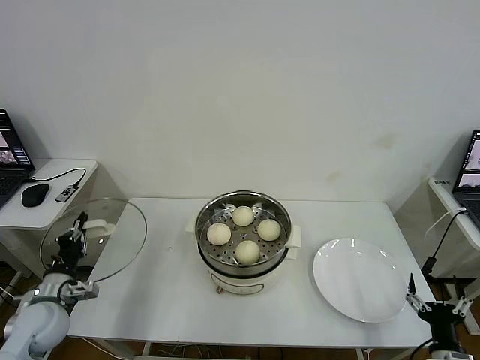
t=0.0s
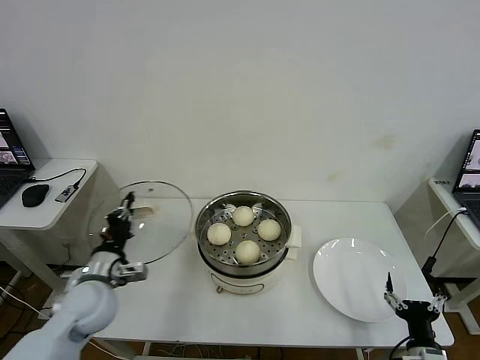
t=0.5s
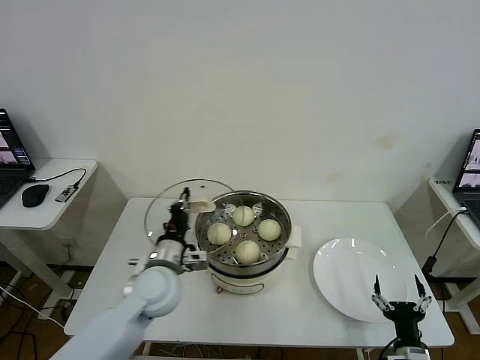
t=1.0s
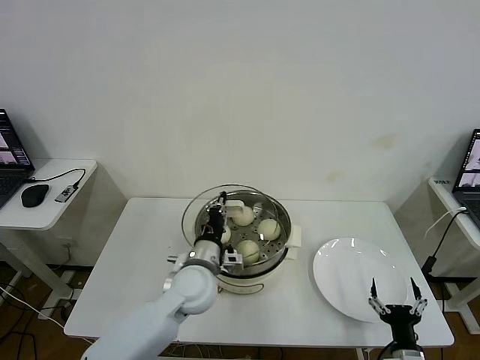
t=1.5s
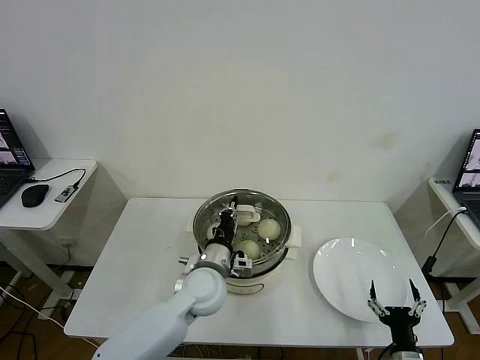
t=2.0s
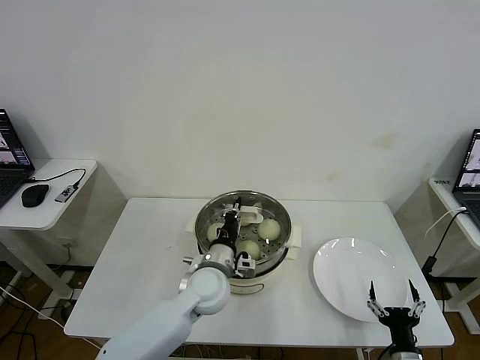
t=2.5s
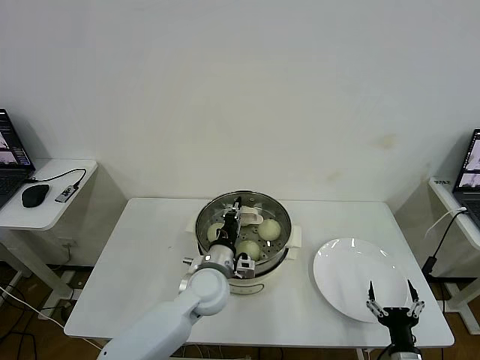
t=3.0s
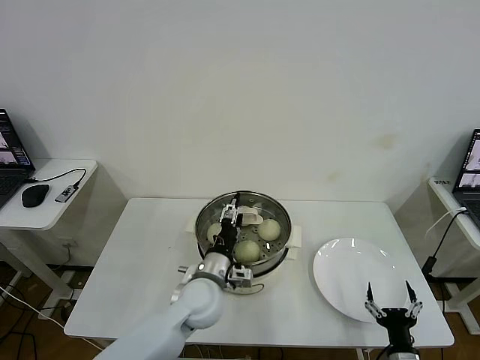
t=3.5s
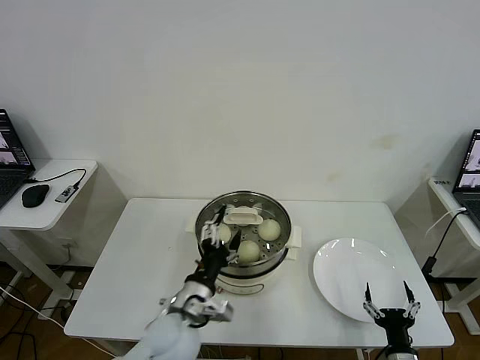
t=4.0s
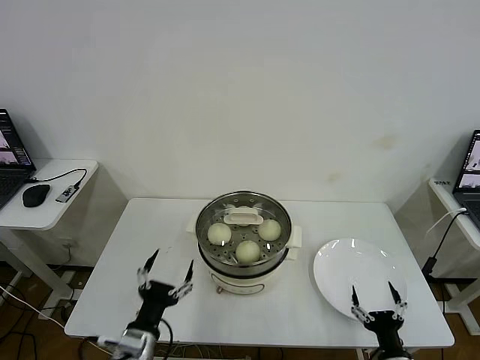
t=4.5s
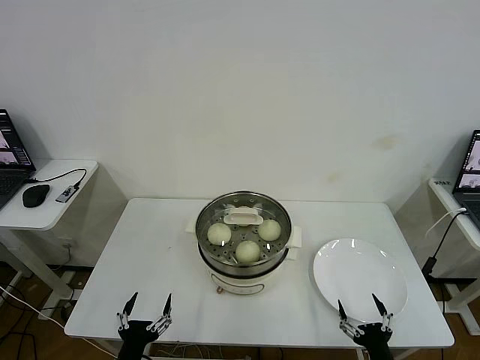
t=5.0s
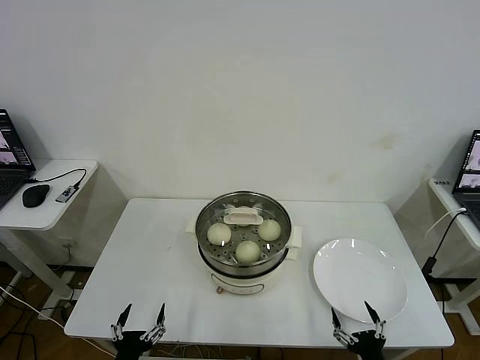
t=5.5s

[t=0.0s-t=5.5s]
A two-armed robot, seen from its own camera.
Task of the whole recording: take steamed baozi put them in steamer then cover it.
Step, t=0.0s to t=3.5s: Place the pot lid on the steamer with left gripper.
t=0.0s to t=2.0s: The right gripper moves to the left, roughly 5 cm; the left gripper moves to the right, some 35 cm.
t=2.0s to t=3.5s: The left gripper opens.
t=3.5s to t=5.5s: The left gripper moves backward, to the left and downward, some 30 cm. The right gripper ends up some 5 cm from where it was.

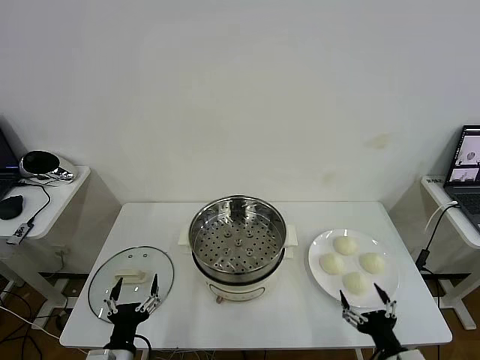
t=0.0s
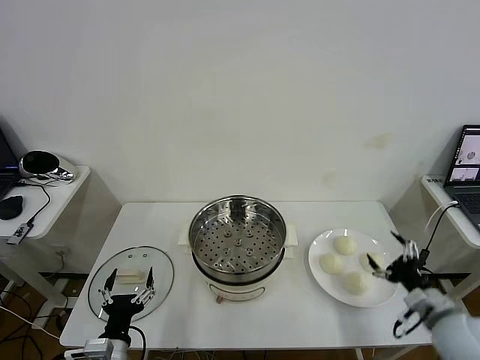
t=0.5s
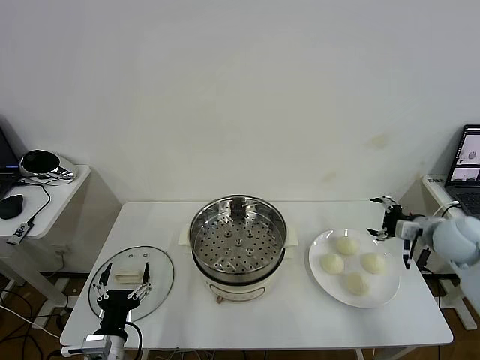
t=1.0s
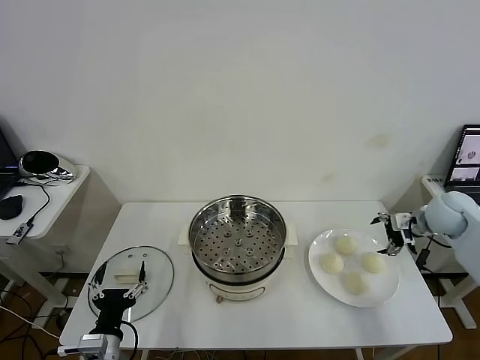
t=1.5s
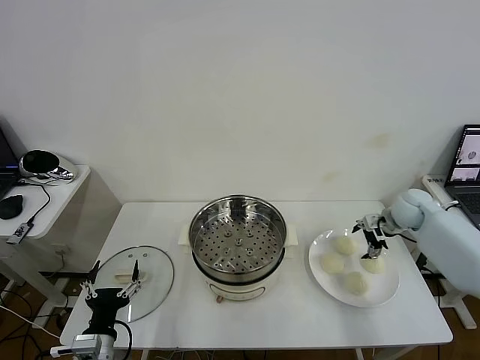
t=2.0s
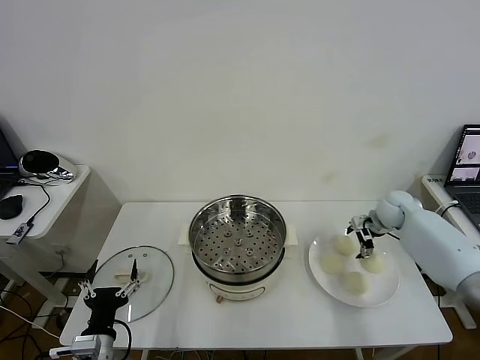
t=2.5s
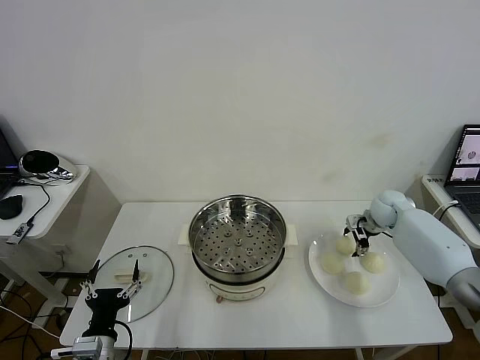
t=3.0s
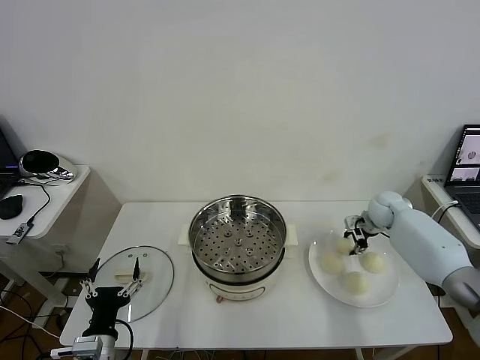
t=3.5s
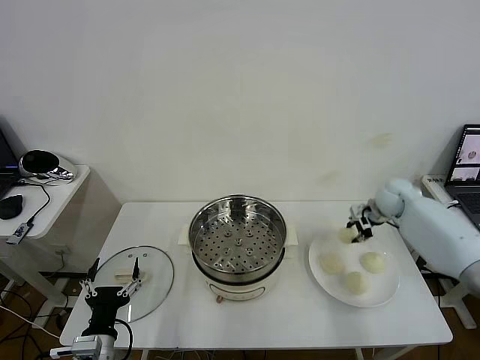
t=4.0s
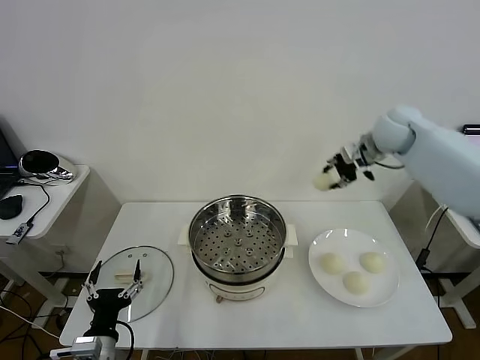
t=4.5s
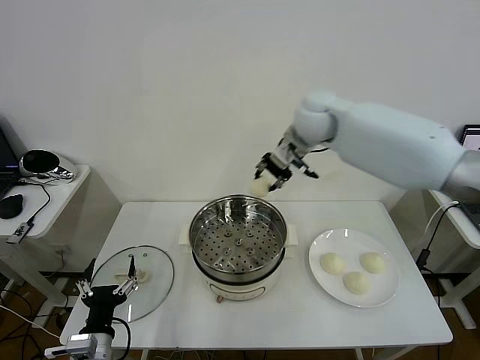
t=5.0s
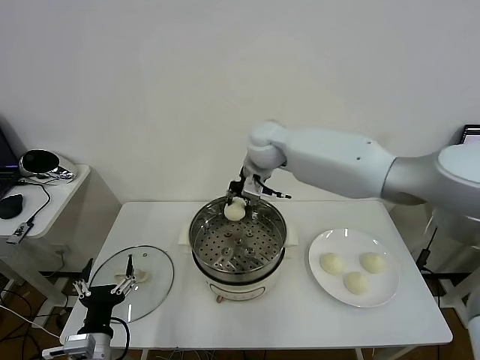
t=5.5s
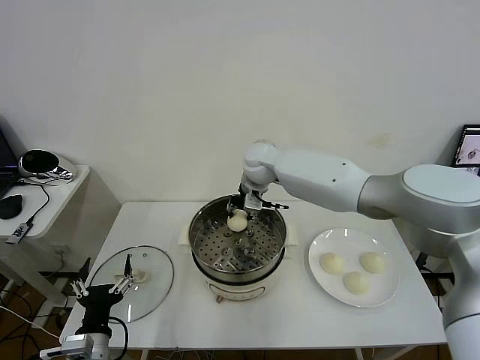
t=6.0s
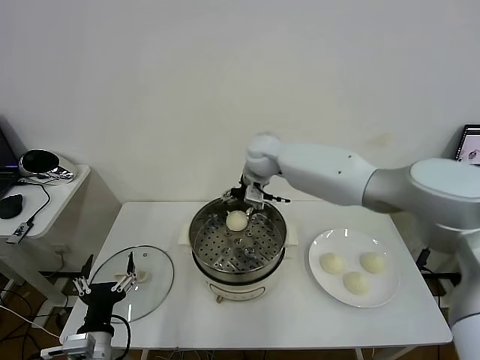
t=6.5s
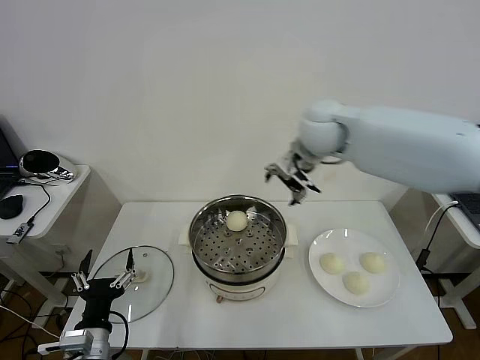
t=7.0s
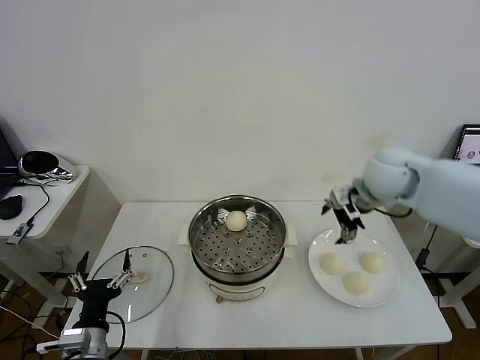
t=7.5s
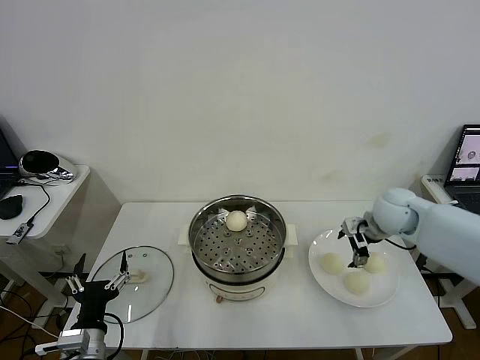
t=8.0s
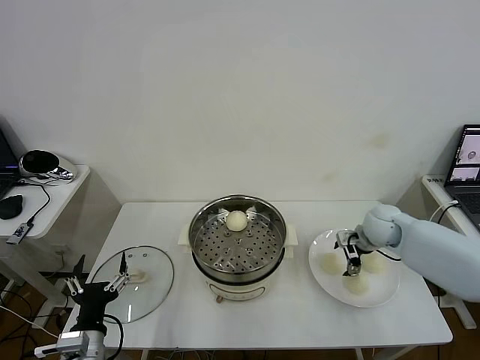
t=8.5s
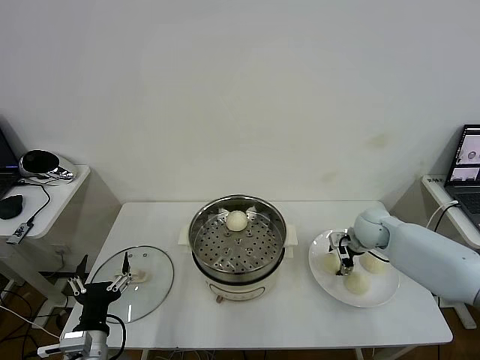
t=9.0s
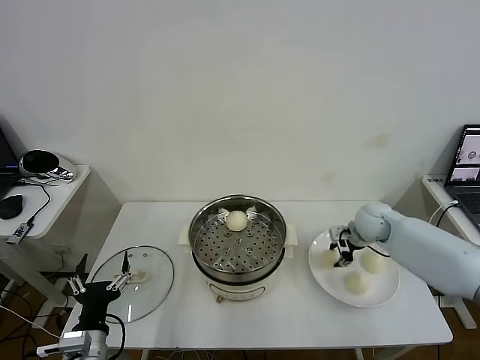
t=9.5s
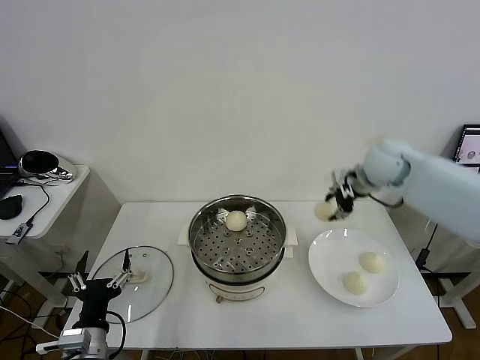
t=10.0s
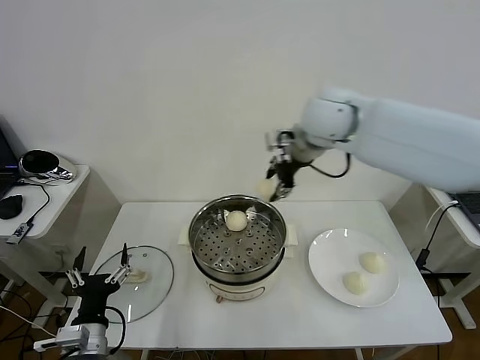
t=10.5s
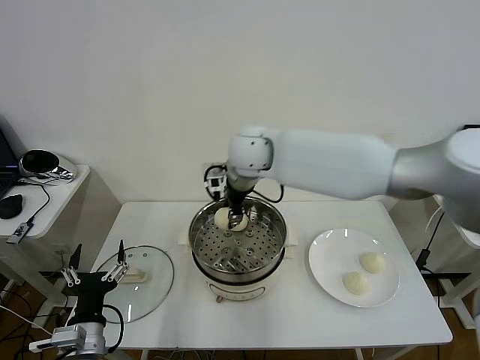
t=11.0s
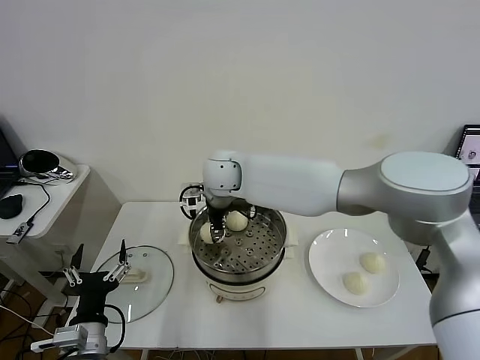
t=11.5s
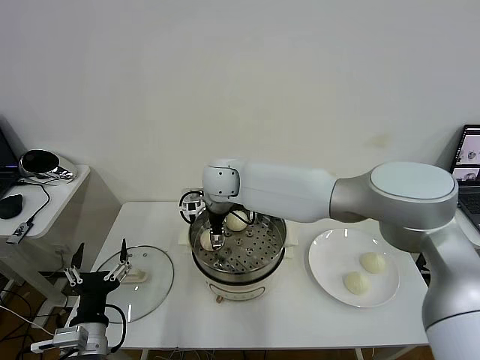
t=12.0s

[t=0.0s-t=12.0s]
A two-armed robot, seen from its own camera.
Task of the whole recording: take steamed baozi put them in steamer then cover it.
Step, t=0.0s to t=3.5s: Grasp the baozi in the plate with right gripper.
Step, t=4.0s to t=6.0s: Place the baozi on the steamer with right gripper.
Step, t=6.5s to t=9.0s: Grasp the baozi in the plate with right gripper.
t=2.0s to t=4.0s: The right gripper moves upward, roughly 5 cm, and closes its fingers.
t=4.0s to t=6.0s: The right gripper is displaced to the left by roughly 35 cm.
t=6.0s to t=8.0s: The right gripper shifts about 30 cm to the right, and opens.
t=8.0s to t=10.0s: The right gripper travels upward, forward and to the left by about 15 cm, and closes up.
t=10.0s to t=12.0s: The right gripper heads to the left, covering about 35 cm, and opens up.

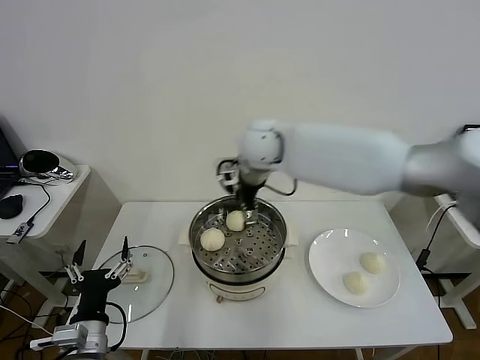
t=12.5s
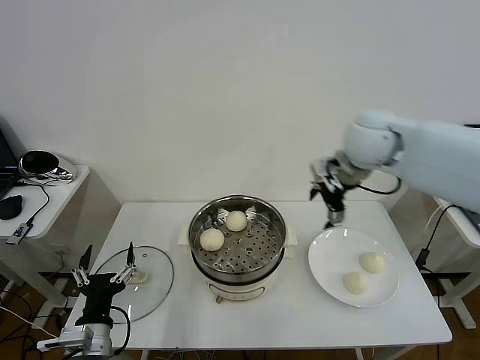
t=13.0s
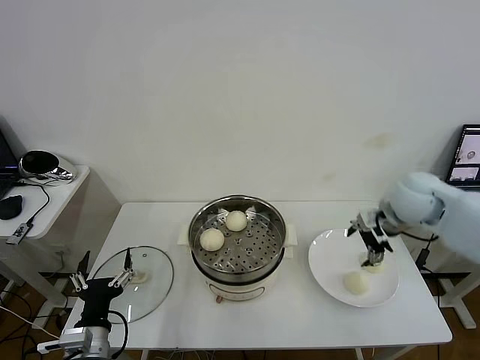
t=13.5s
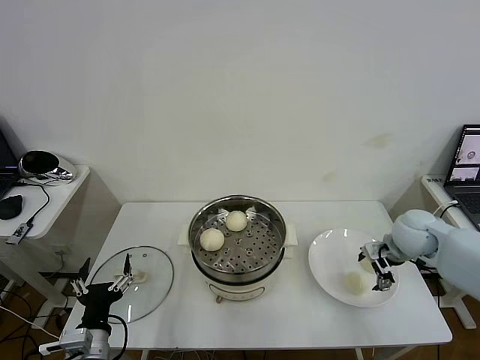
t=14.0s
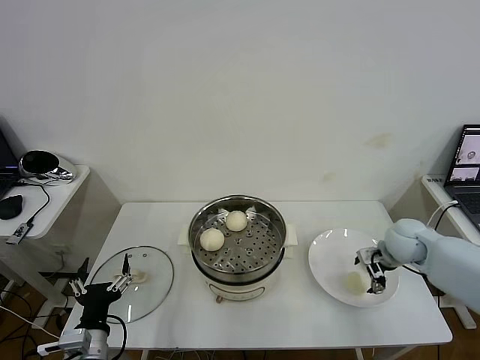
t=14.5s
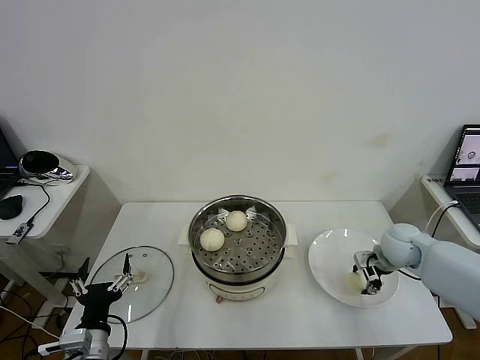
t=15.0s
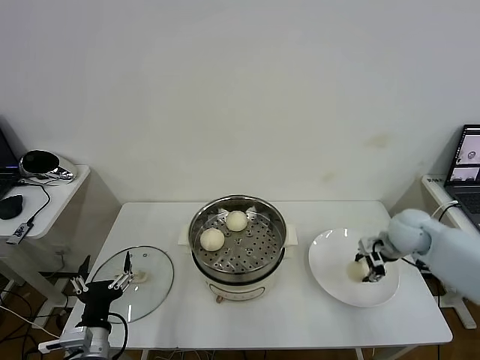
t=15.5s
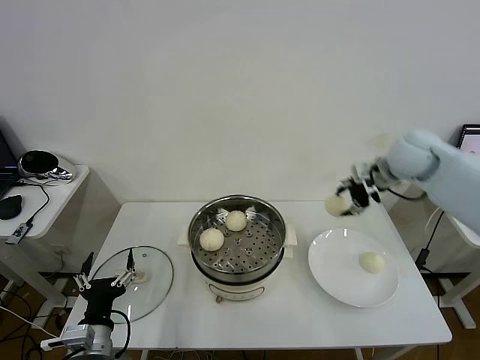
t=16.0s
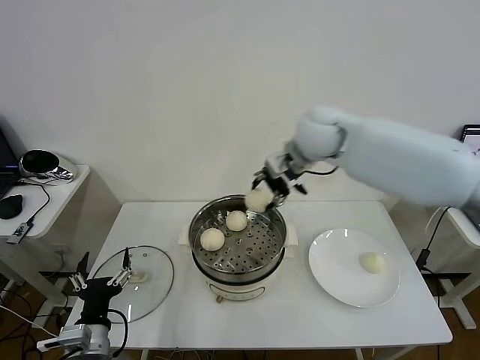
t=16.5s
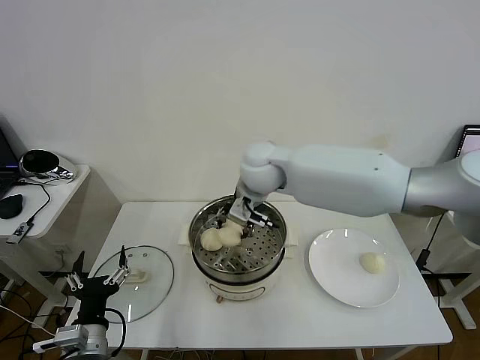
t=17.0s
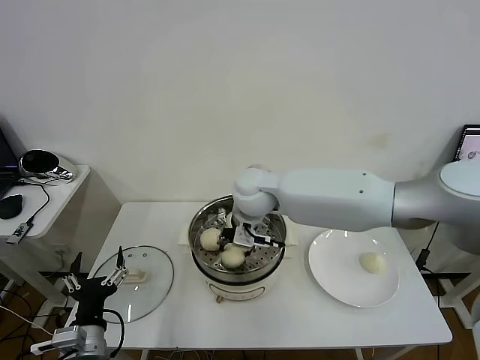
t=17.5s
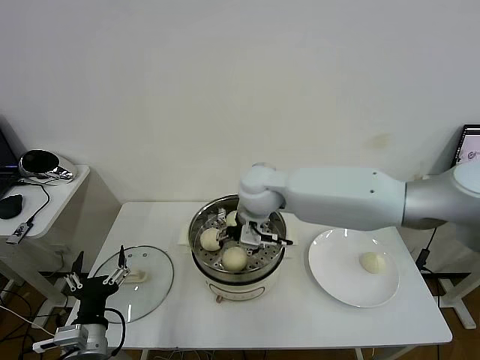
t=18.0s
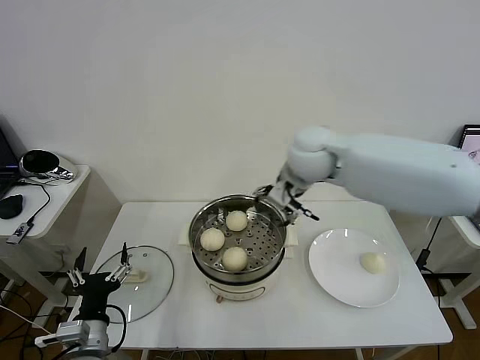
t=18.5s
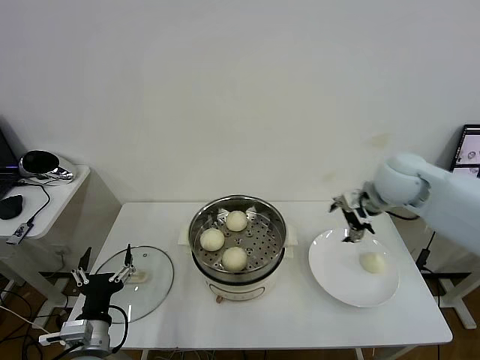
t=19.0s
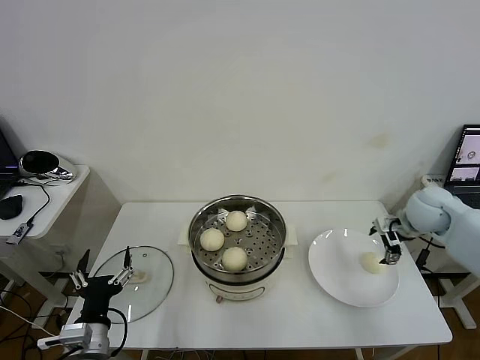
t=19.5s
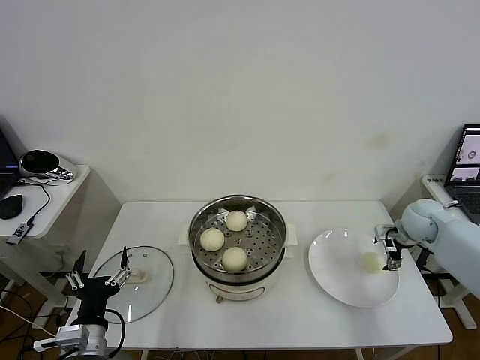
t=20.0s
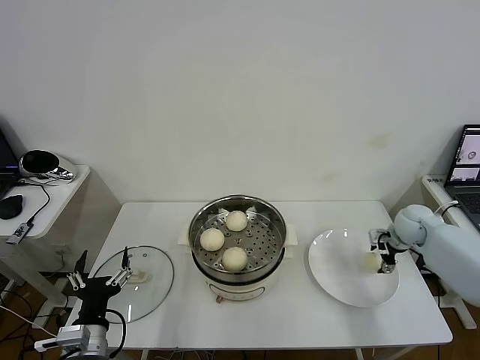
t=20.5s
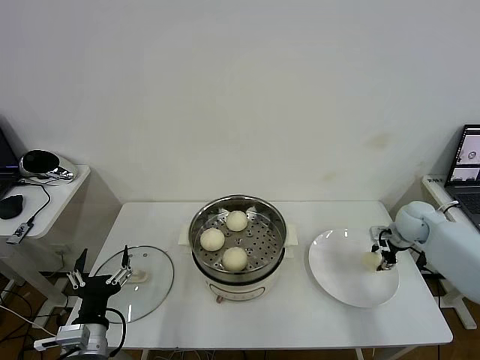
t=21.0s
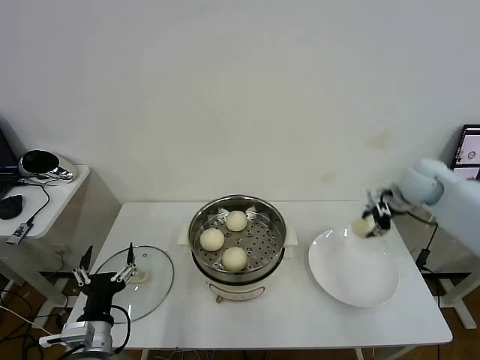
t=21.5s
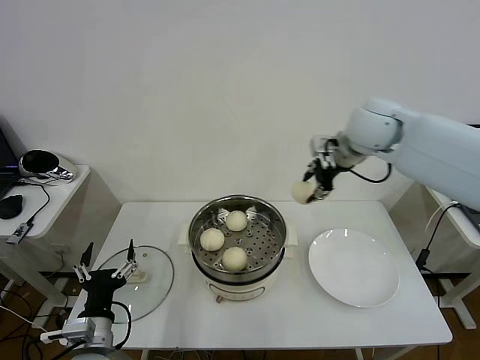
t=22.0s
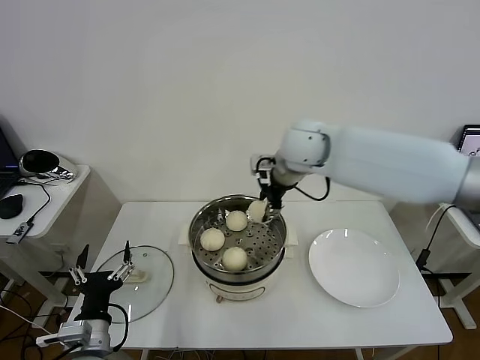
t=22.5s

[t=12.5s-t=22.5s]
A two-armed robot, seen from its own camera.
Task of the whole recording: take steamed baozi put them in steamer then cover it.
Step, t=12.5s to t=15.0s: Grasp the baozi in the plate with right gripper.
Step, t=15.5s to t=18.0s: Place the baozi on the steamer with right gripper.
Step, t=18.5s to t=20.5s: Grasp the baozi in the plate with right gripper.
t=12.5s to t=14.5s: The right gripper heads to the right and downward, covering some 40 cm.
t=14.5s to t=16.5s: The right gripper travels to the left and upward by about 35 cm, and closes.
t=16.5s to t=18.5s: The right gripper goes to the left and returns, roughly 10 cm each way, and opens its fingers.
t=18.5s to t=20.5s: The right gripper shifts about 35 cm to the right and downward.
t=20.5s to t=22.5s: The right gripper goes about 40 cm to the left and upward, and closes up.
